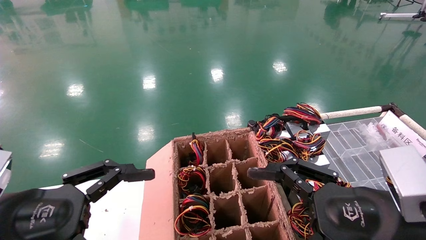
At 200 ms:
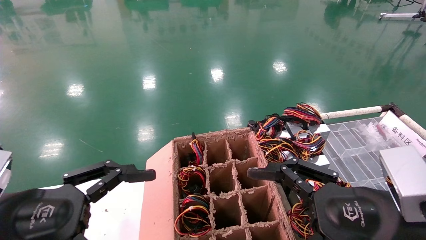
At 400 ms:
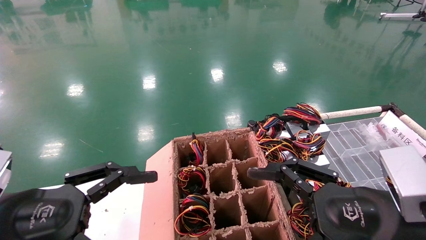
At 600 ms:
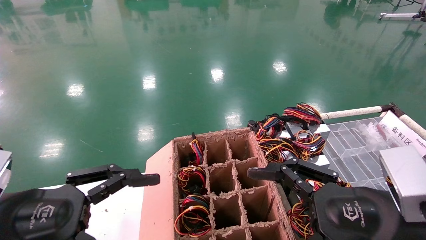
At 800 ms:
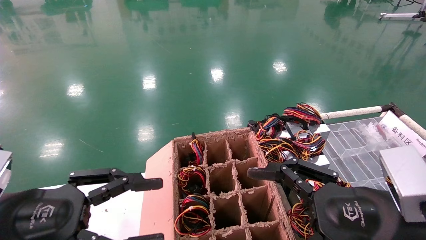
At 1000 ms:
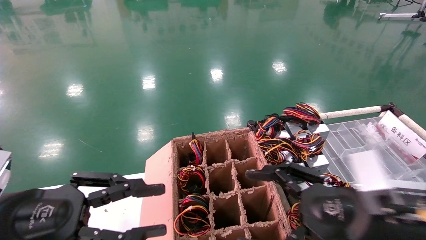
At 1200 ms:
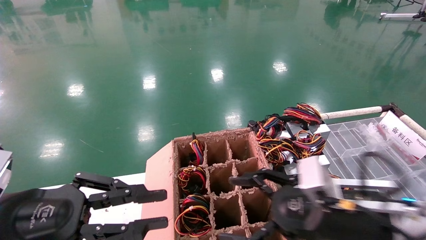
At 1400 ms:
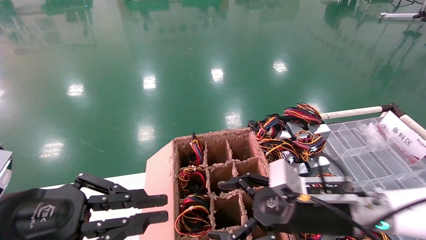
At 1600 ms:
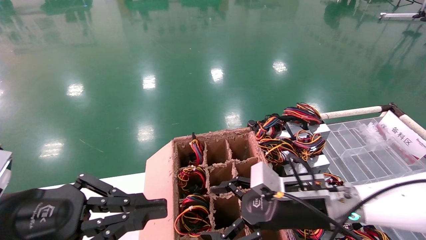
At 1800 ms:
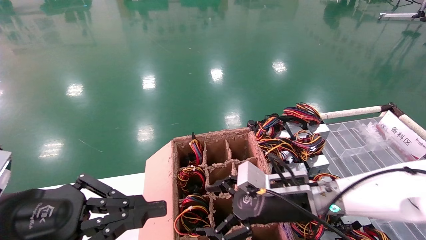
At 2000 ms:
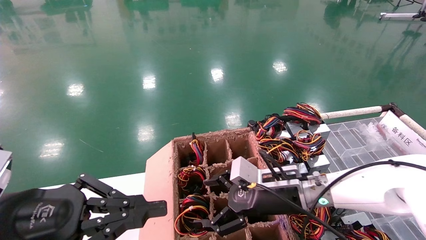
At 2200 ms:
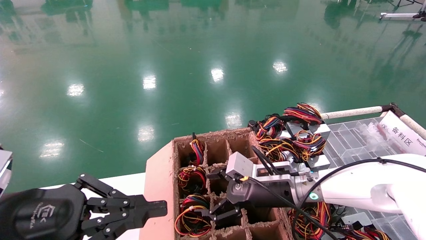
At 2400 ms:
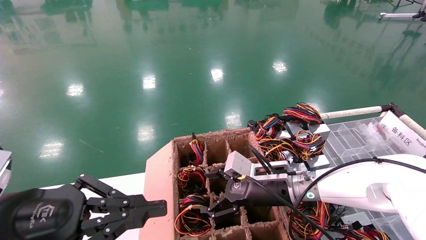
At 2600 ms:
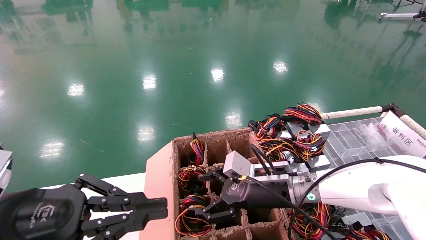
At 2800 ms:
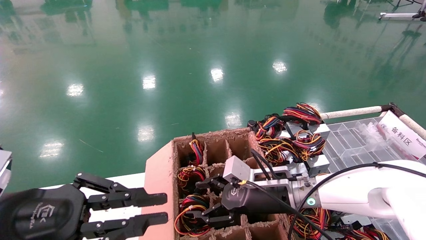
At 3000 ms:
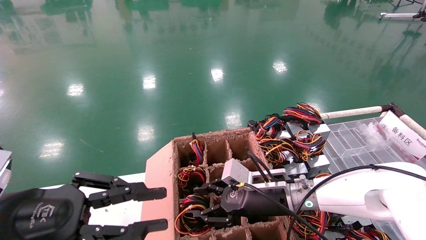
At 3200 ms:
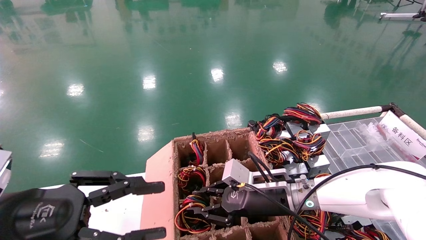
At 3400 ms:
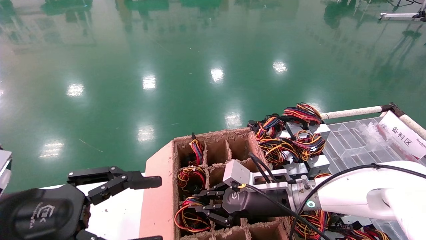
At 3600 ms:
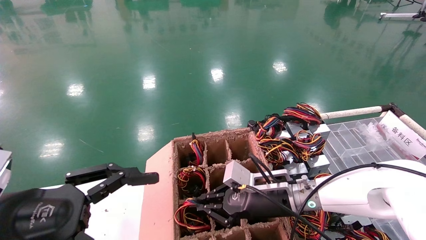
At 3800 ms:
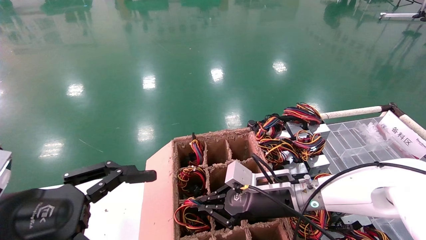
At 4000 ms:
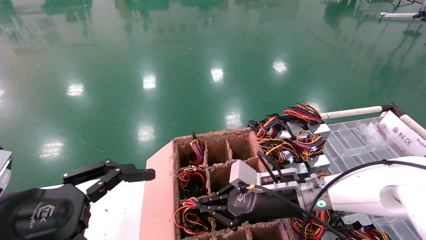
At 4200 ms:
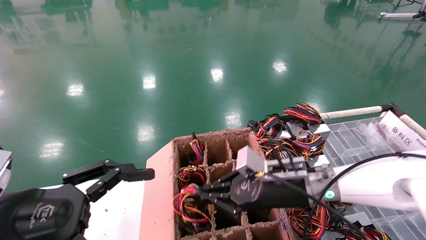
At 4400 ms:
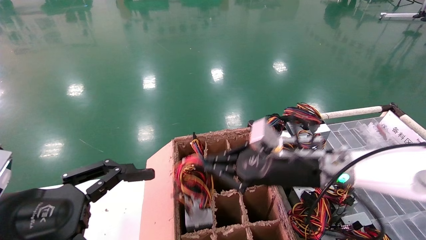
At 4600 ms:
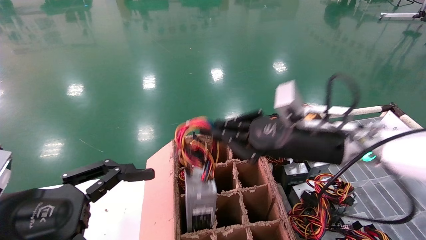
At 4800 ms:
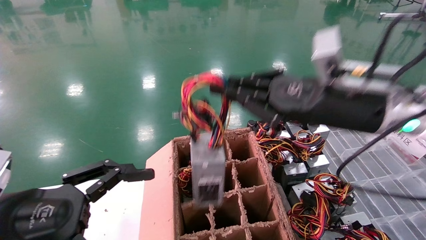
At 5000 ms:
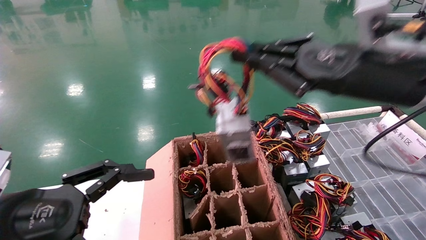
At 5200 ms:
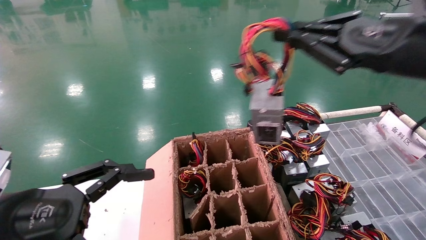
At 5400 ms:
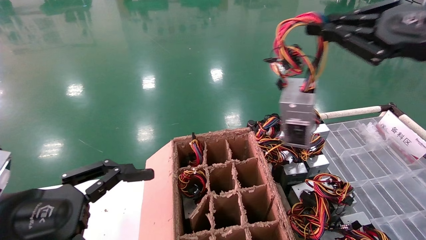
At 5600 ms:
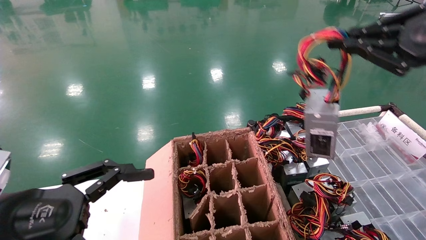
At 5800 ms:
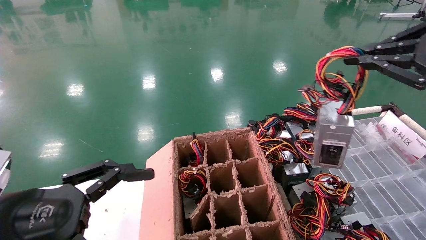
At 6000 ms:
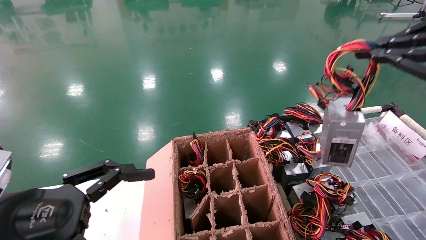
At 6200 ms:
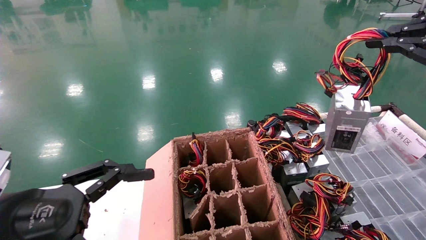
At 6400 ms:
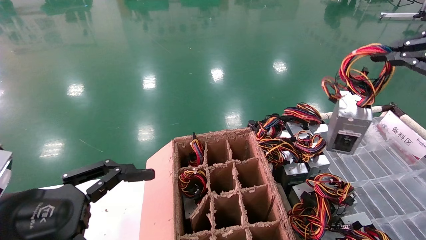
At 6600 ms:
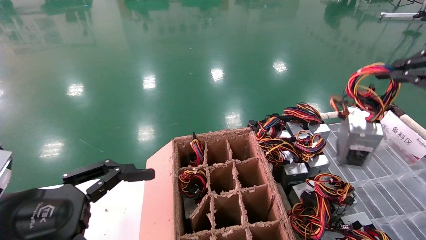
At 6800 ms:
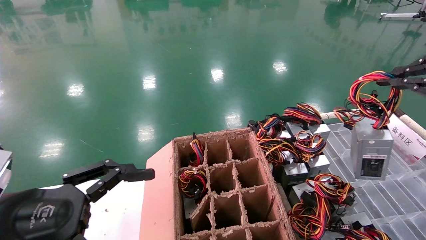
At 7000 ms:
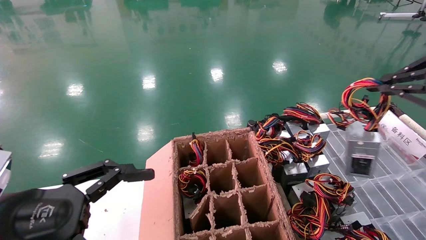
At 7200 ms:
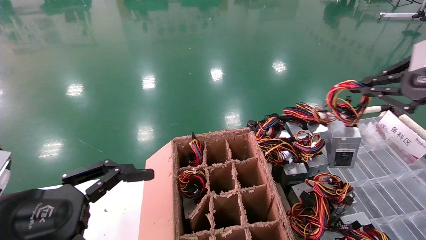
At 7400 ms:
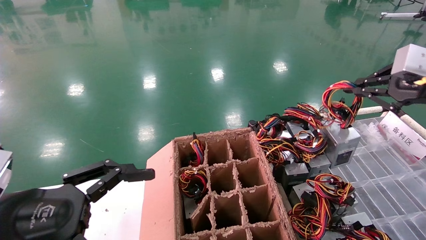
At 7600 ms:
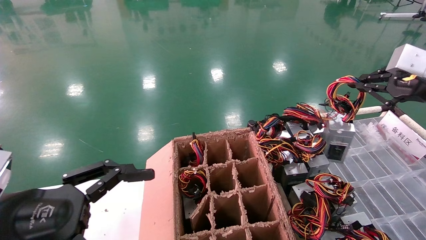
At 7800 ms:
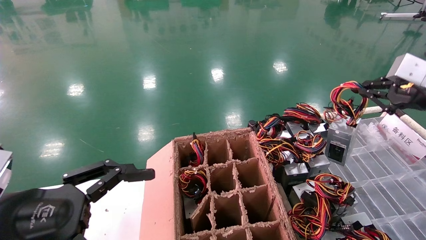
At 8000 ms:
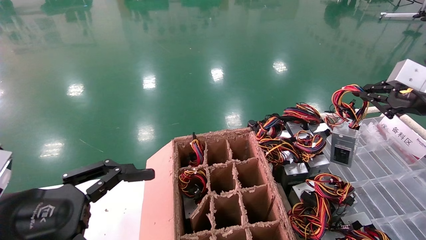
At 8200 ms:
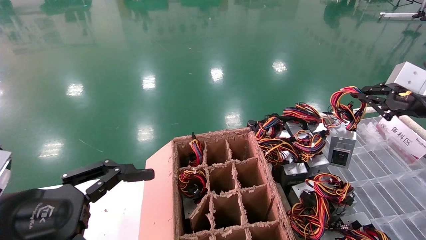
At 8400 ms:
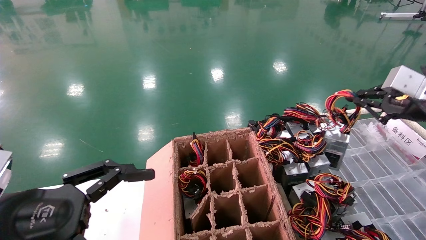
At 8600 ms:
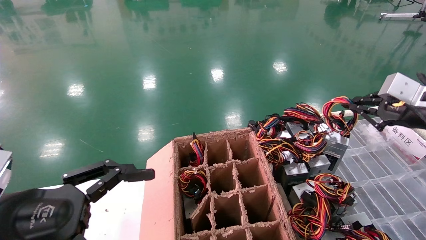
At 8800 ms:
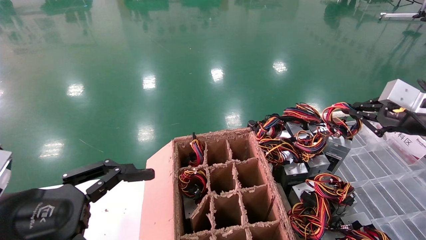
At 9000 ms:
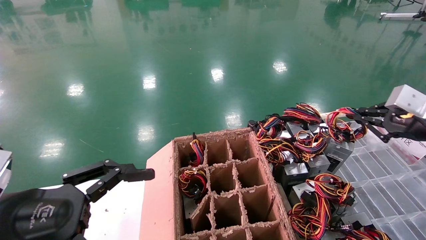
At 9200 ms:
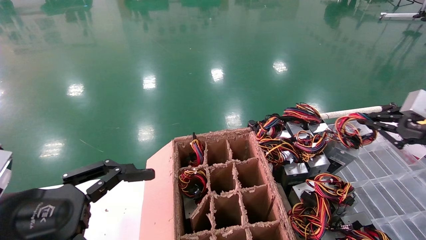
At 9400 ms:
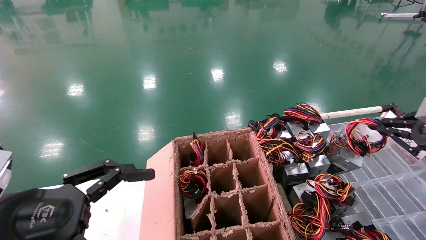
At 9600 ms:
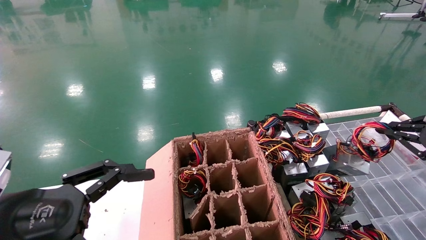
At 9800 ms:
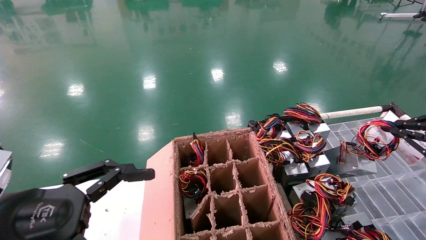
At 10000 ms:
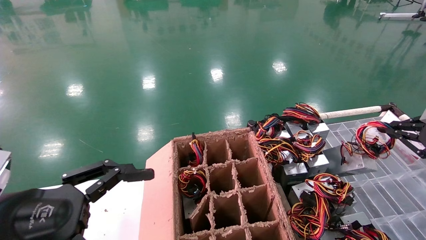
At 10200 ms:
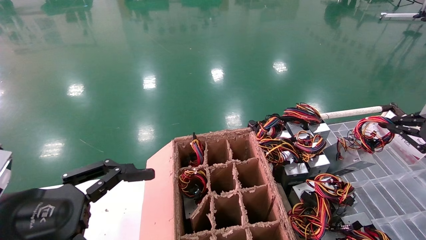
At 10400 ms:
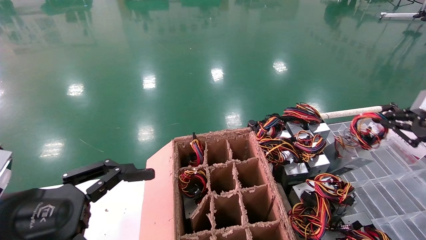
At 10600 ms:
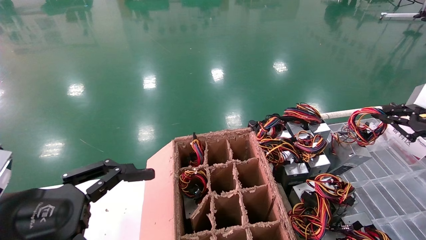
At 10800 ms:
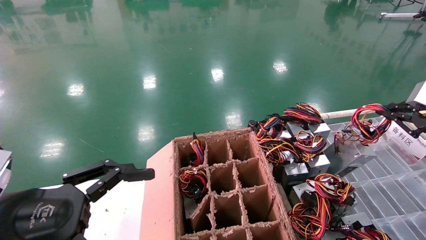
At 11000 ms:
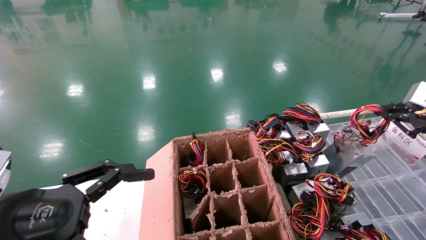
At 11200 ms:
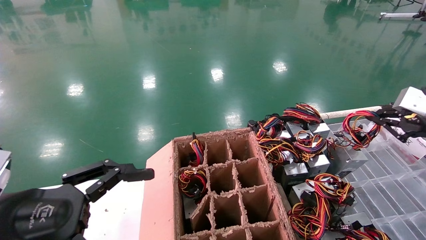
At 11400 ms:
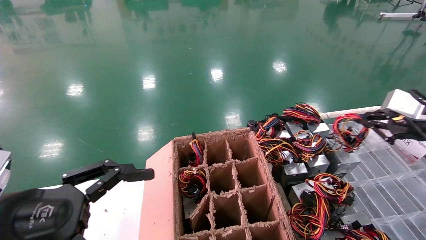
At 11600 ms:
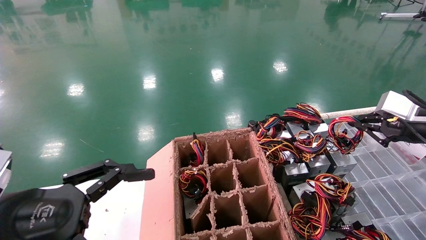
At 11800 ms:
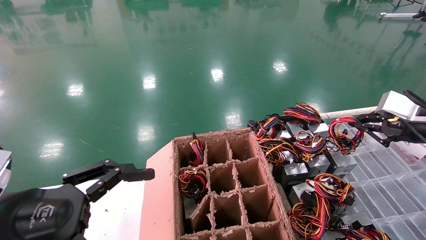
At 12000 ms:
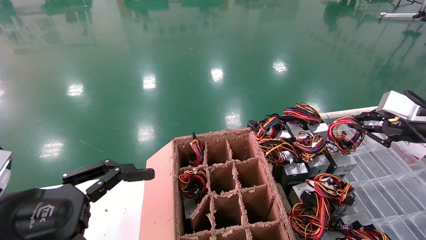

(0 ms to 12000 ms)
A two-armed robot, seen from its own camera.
Step, 1800 ms - 3800 ms: Grab and lift the power supply from the large box.
Step, 4000 ms - 12000 ms: Place the power supply on the operating table.
0 ms - 1600 ms: The right gripper is displaced forward, downward and to the left by about 15 cm; the left gripper closes up.
1600 ms - 3000 ms: The right gripper goes roughly 5 cm forward, and closes its fingers.
3000 ms - 4400 ms: The right gripper shifts about 10 cm upward, and closes up; the left gripper opens its fingers.
4400 ms - 6000 ms: The right gripper is displaced to the right, upward and backward by some 35 cm.
6000 ms - 7600 ms: The right gripper is displaced forward and downward by about 15 cm.
7600 ms - 9000 ms: The right gripper shifts some 10 cm downward.
9000 ms - 10400 ms: The grippers move only a little.
10400 ms - 12000 ms: The right gripper ends up some 5 cm from where it was.

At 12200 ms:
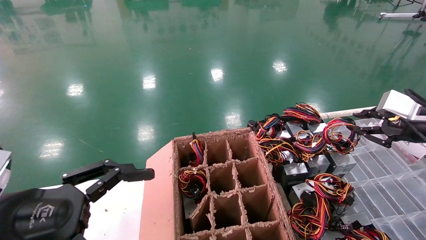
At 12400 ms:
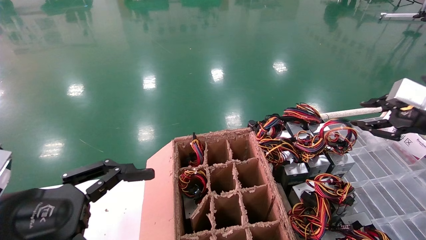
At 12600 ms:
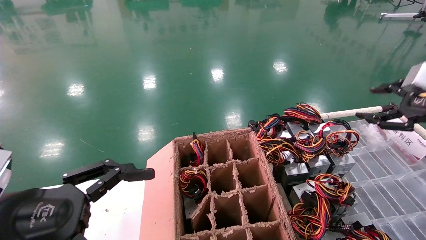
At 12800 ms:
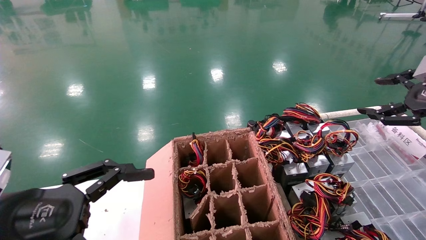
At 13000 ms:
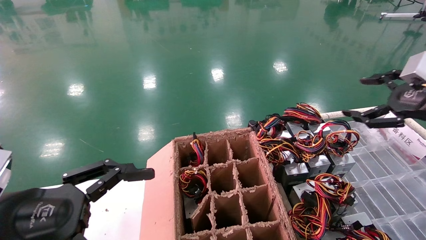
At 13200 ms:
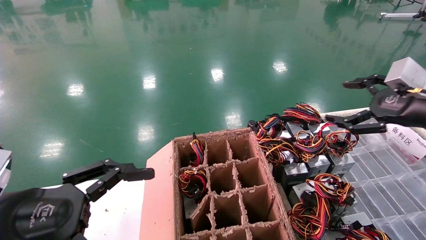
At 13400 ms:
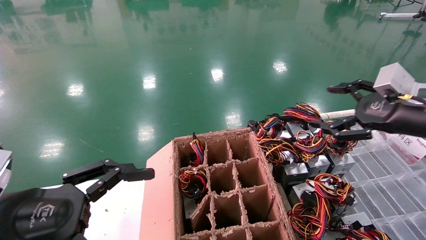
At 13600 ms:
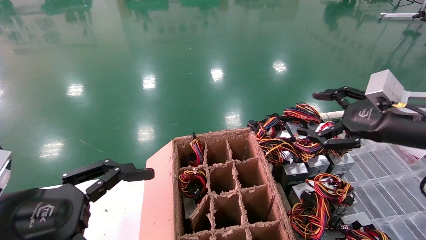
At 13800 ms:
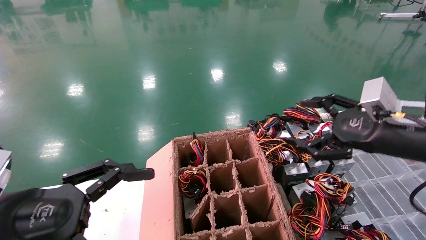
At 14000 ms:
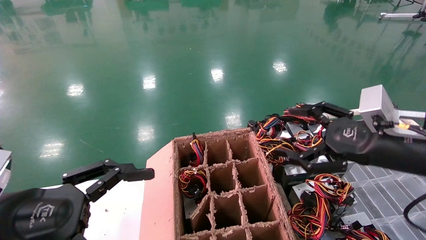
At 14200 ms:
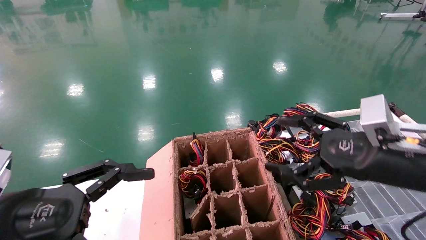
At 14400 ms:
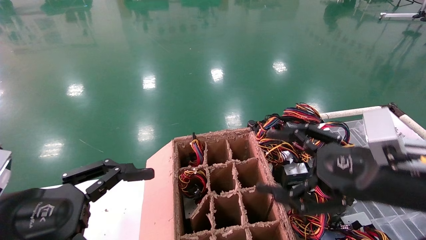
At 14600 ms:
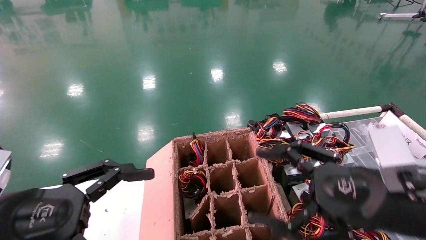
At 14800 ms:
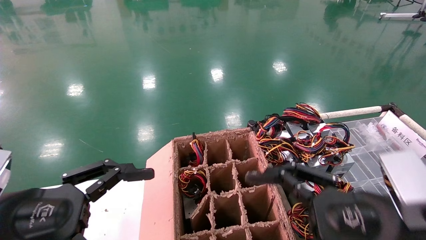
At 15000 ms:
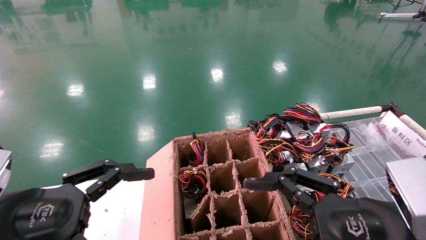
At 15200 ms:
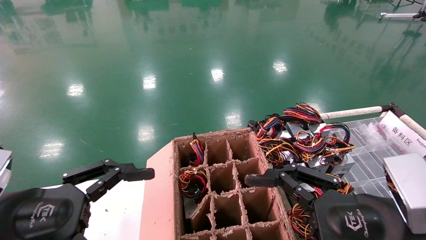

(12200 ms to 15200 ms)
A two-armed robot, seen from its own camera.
12200 ms - 13800 ms: The right gripper is displaced to the left by about 10 cm, and opens its fingers.
13800 ms - 15200 ms: The right gripper moves backward, to the left and downward, roughly 15 cm.
